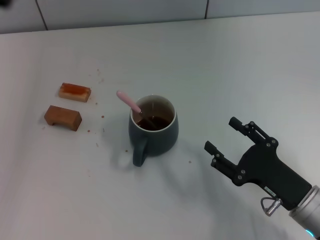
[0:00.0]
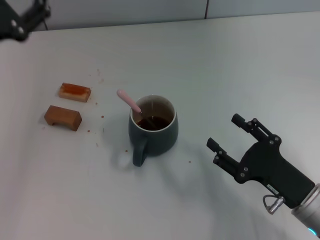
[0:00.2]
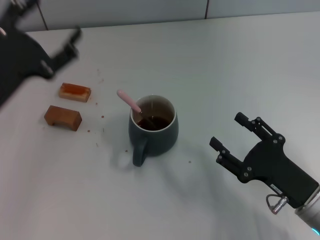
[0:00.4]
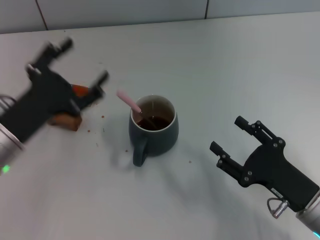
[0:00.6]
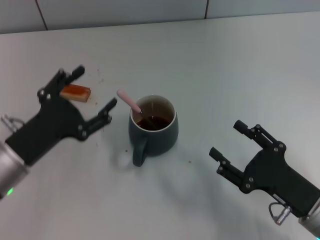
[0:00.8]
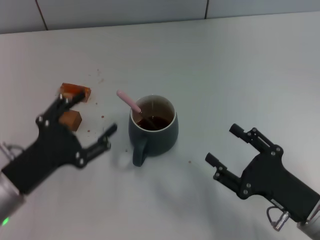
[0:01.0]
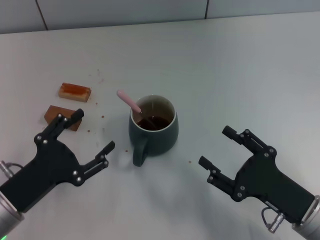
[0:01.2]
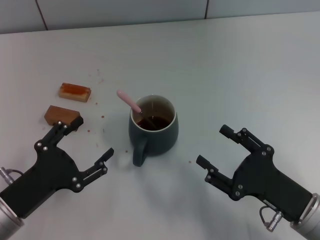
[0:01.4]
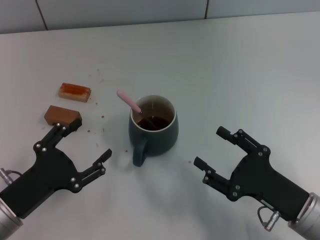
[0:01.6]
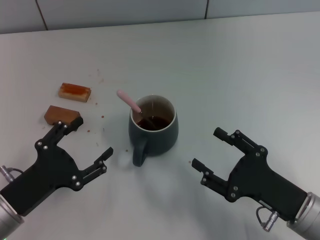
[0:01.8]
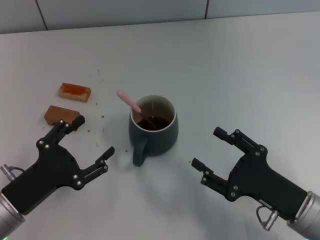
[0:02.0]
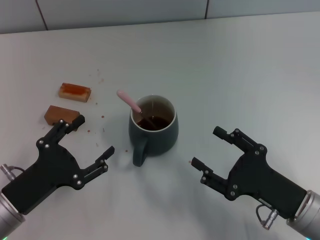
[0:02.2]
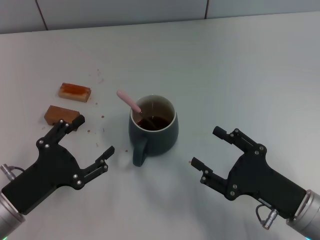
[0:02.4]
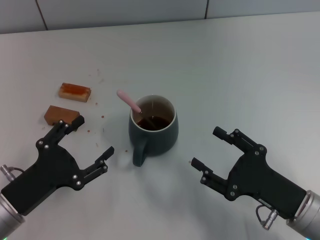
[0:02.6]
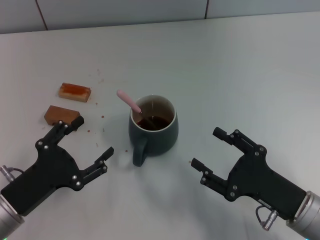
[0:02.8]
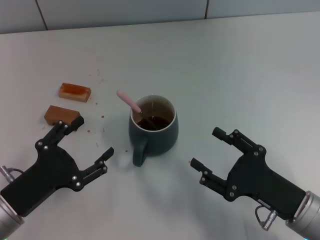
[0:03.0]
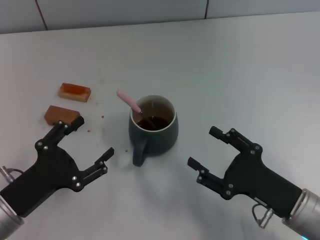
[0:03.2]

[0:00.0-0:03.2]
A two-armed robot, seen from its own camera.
Task of the whole recording: Move the grey cup to the center, lift the pink spoon, stir it three times in the cup, and put the spoon into the cup.
0:00.0 to 0:01.6: The left gripper is displaced downward and backward by approximately 20 cm.
0:01.6 to 0:03.2: The two grippers keep their place.

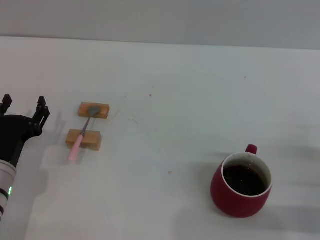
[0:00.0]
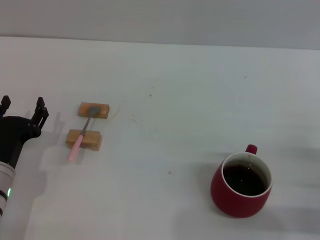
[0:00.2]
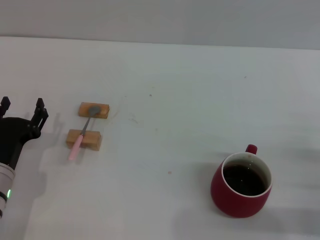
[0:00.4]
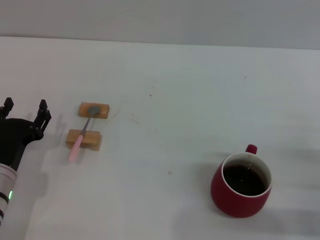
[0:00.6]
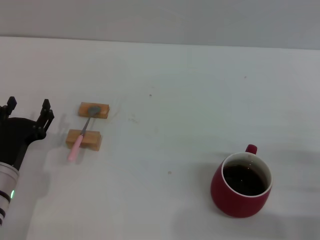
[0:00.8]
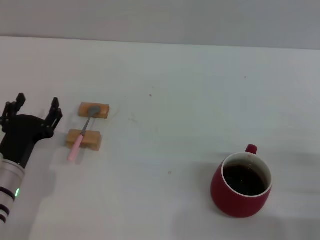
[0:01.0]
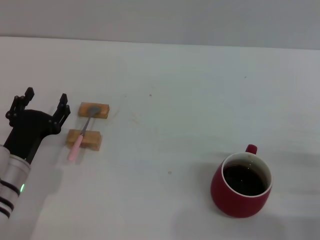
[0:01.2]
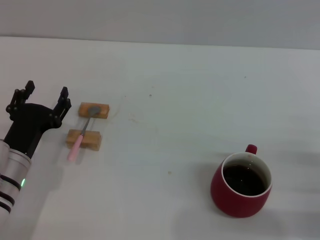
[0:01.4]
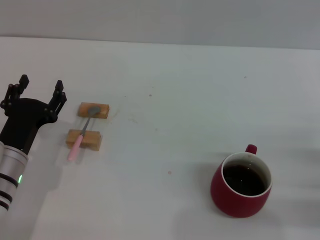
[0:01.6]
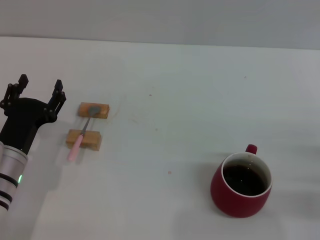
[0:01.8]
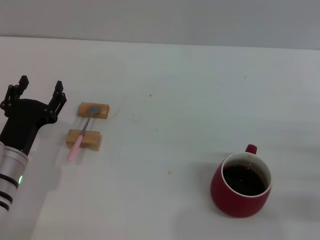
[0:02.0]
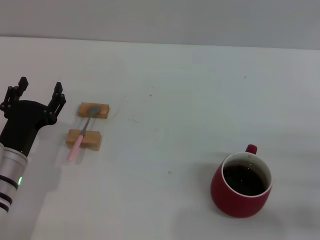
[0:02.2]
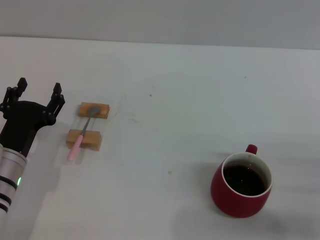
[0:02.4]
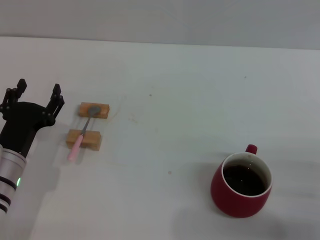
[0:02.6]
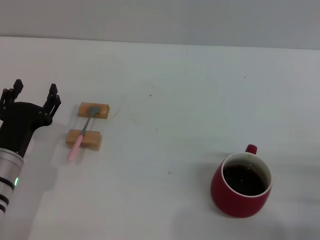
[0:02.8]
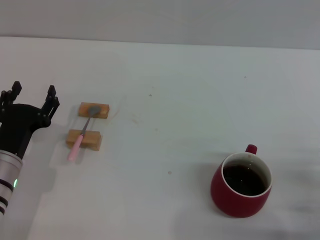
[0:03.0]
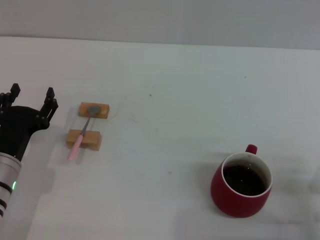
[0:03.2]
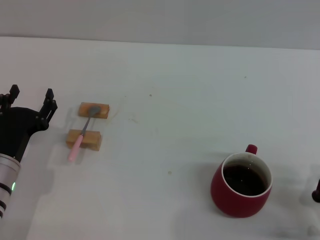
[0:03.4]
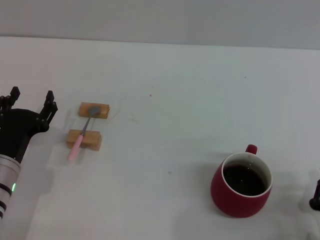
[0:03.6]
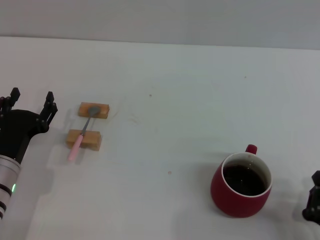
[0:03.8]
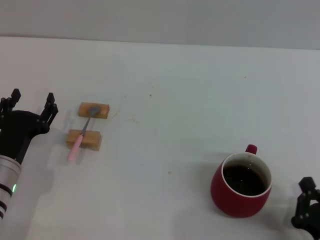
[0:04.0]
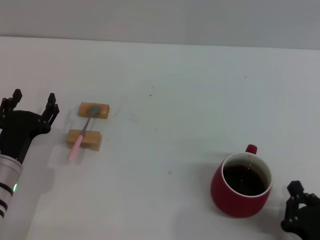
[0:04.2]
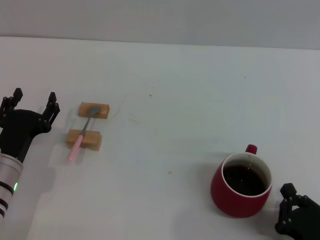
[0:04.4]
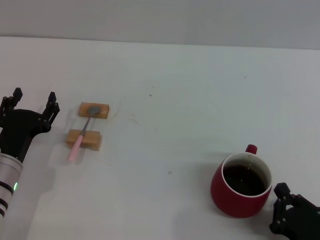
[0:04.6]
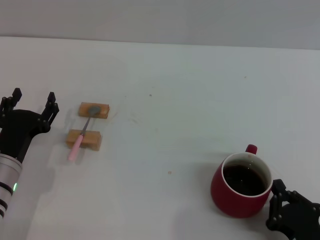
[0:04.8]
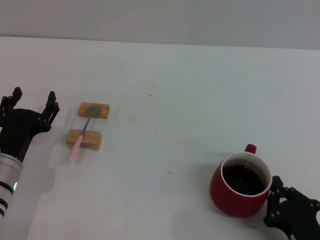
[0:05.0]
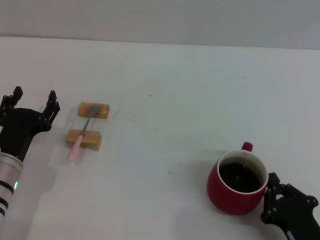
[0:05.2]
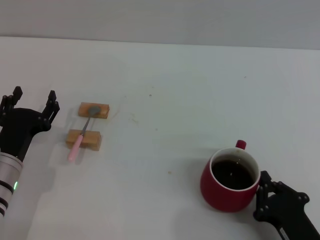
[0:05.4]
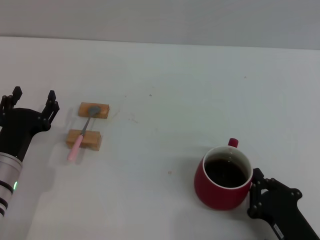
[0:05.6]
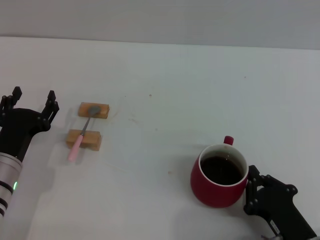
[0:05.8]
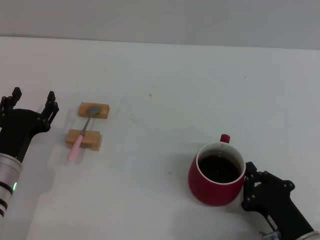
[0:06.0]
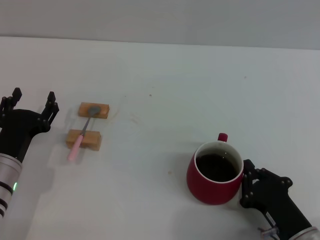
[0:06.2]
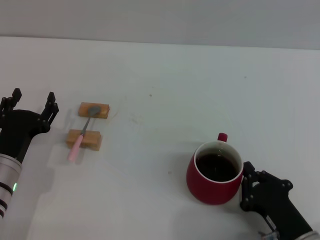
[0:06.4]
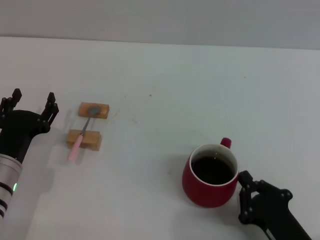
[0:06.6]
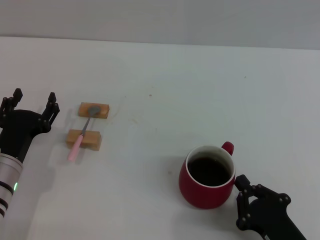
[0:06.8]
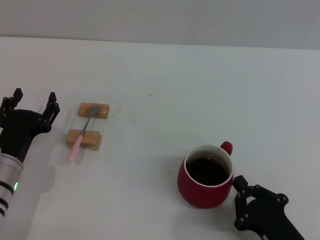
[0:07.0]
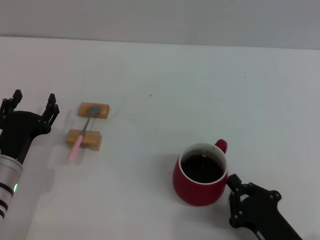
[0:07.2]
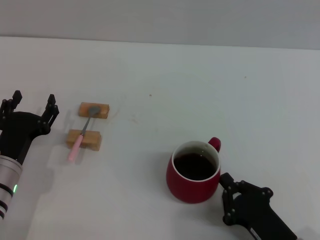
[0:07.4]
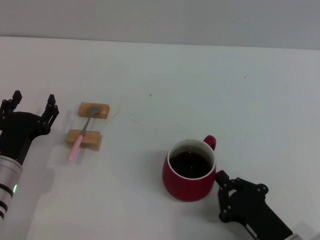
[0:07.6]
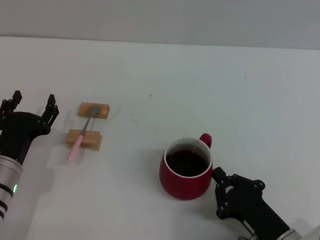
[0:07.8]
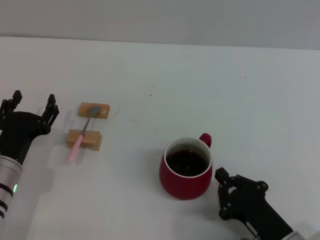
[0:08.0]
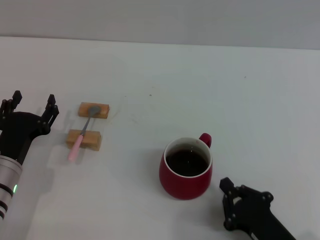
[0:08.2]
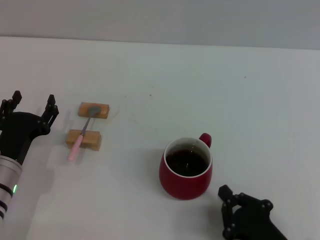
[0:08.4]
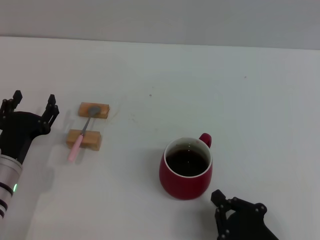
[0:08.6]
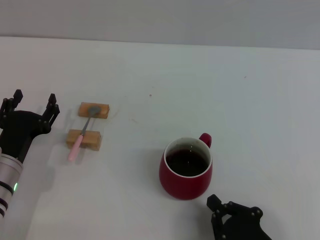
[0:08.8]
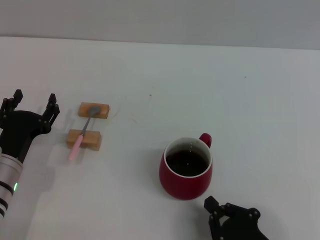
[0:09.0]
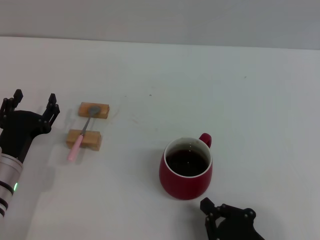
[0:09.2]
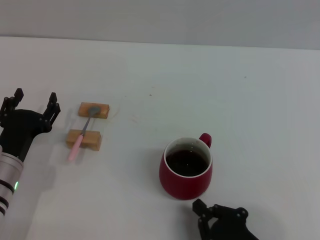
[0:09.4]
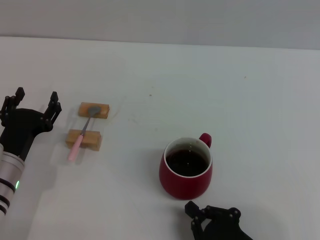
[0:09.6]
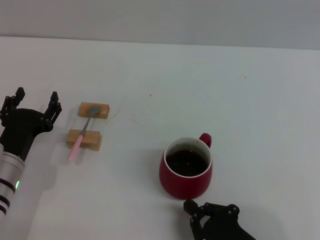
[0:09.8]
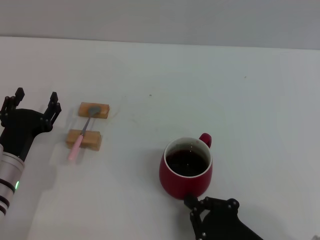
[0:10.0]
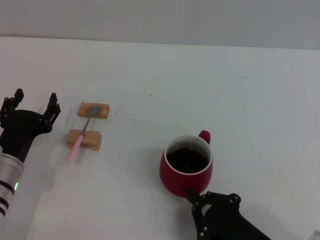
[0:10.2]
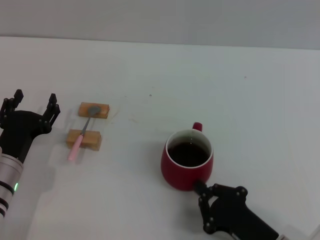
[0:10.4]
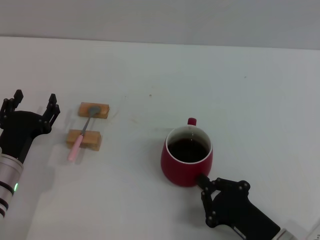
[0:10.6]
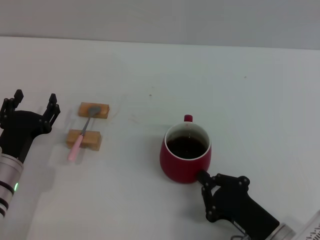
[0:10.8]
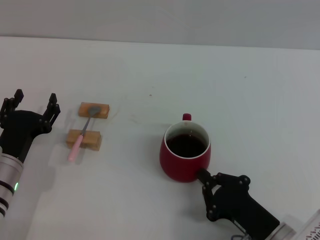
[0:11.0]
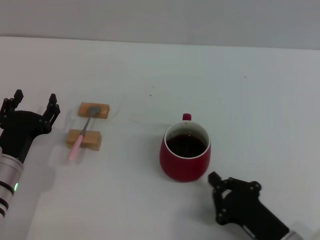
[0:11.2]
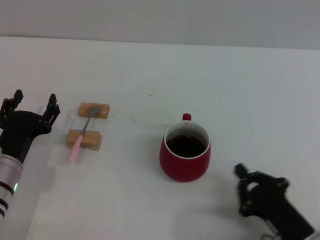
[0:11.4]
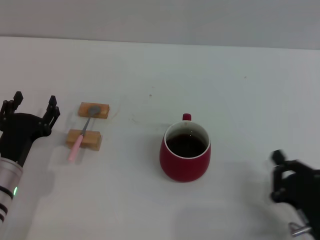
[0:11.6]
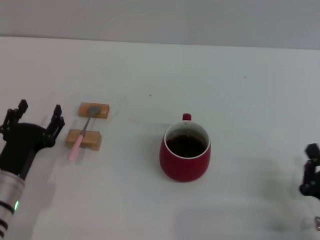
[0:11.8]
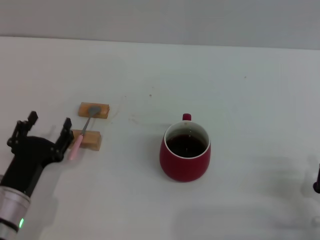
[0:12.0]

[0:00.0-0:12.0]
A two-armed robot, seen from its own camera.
Task of the whole recording: Move the red cup to the center, lift the pink spoon, stir it three times in the cup, and put the spoon into the cup.
Step, 0:00.0 to 0:11.2: Move the cup with coffee to the center of view with the right gripper.
0:00.0 to 0:01.6: There are only small adjustments of the grippers.
0:01.6 to 0:03.0: The right gripper goes approximately 5 cm to the left, and closes.
0:03.0 to 0:04.4: The right gripper moves to the left and backward, some 10 cm.
0:04.4 to 0:06.0: The right gripper shifts by about 5 cm.
0:06.0 to 0:09.0: The grippers stay close to where they were, moving slightly.
0:09.0 to 0:10.4: There are only small adjustments of the grippers.
0:10.4 to 0:12.0: The left gripper shifts by approximately 5 cm. The right gripper heads to the right, covering some 10 cm.

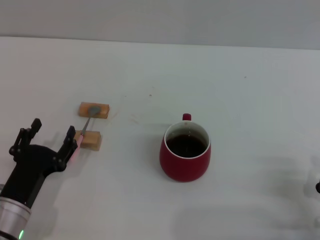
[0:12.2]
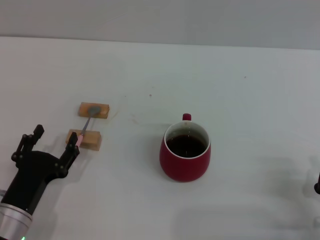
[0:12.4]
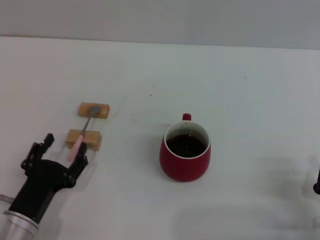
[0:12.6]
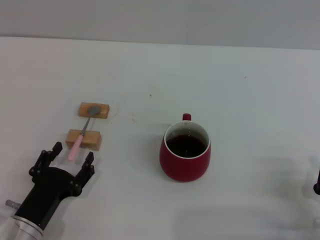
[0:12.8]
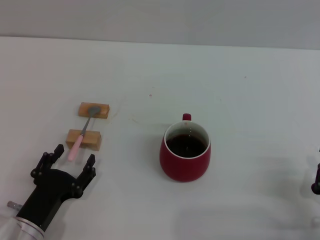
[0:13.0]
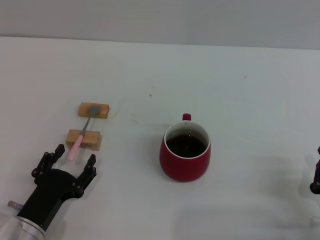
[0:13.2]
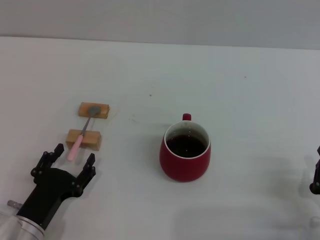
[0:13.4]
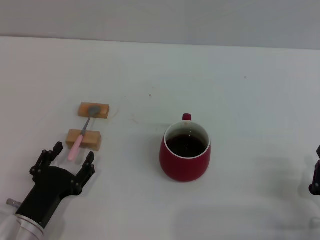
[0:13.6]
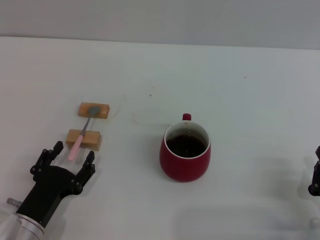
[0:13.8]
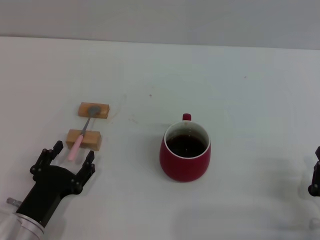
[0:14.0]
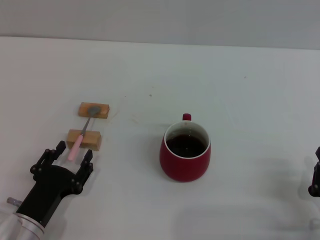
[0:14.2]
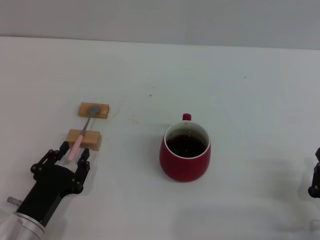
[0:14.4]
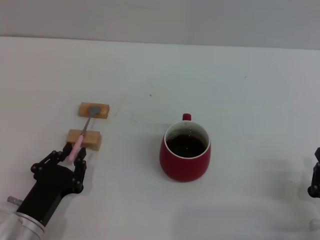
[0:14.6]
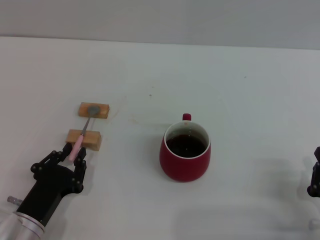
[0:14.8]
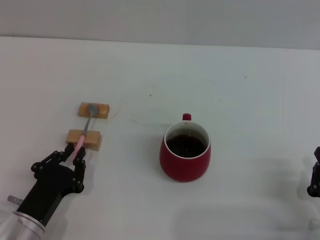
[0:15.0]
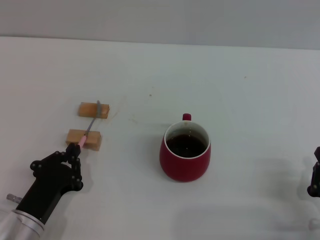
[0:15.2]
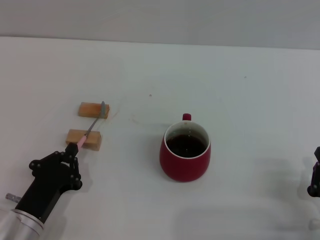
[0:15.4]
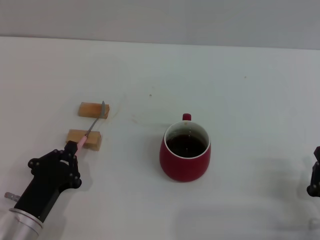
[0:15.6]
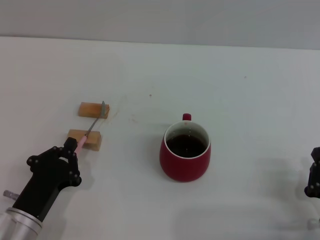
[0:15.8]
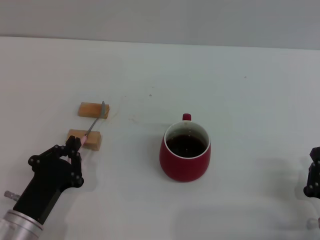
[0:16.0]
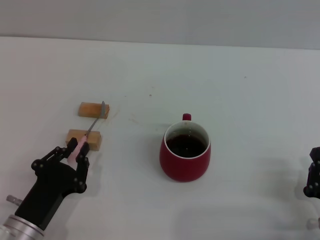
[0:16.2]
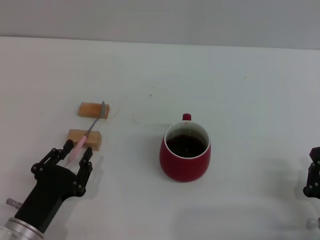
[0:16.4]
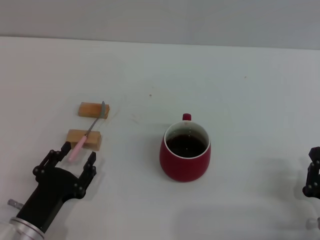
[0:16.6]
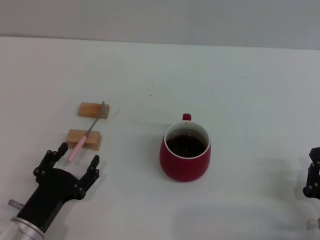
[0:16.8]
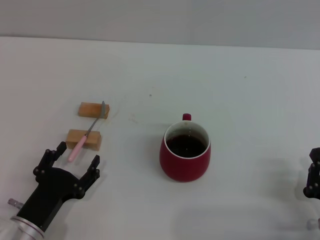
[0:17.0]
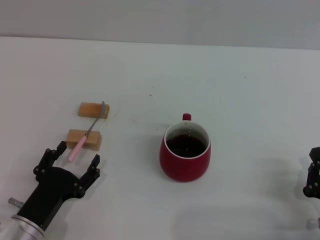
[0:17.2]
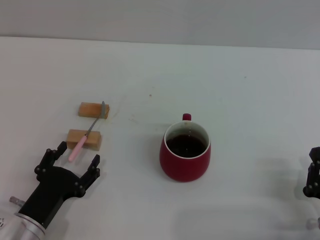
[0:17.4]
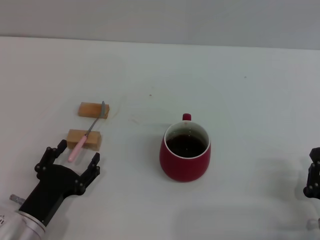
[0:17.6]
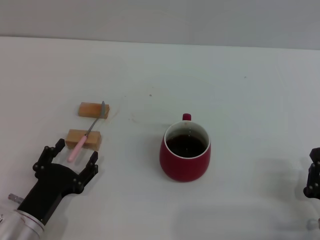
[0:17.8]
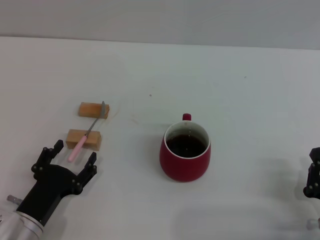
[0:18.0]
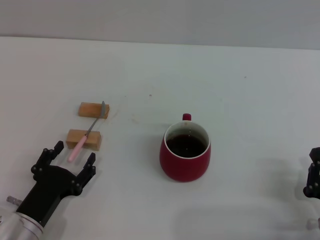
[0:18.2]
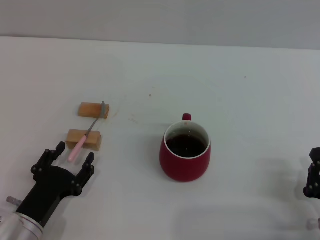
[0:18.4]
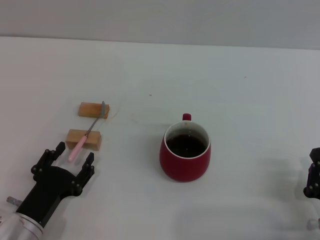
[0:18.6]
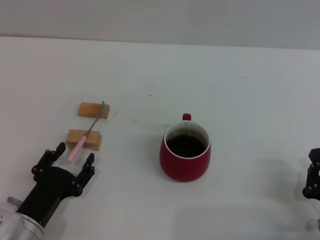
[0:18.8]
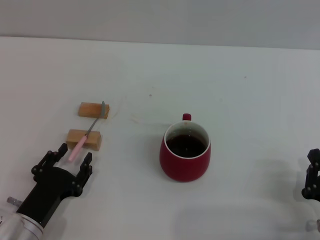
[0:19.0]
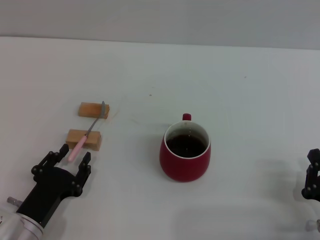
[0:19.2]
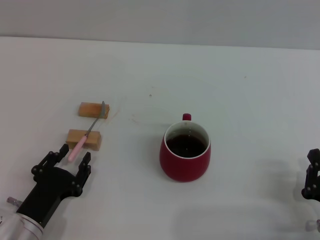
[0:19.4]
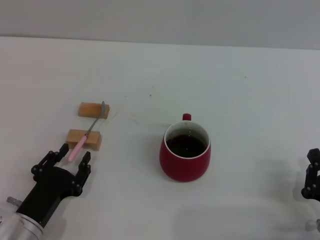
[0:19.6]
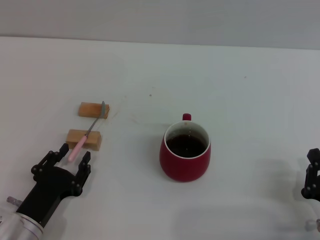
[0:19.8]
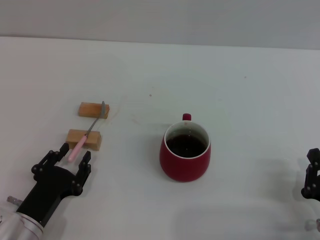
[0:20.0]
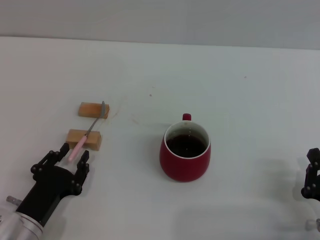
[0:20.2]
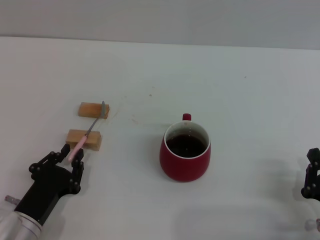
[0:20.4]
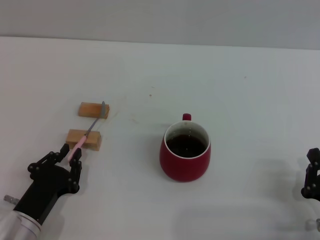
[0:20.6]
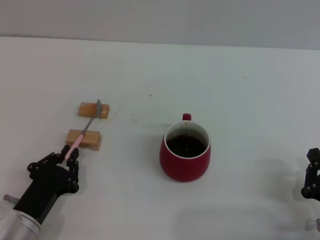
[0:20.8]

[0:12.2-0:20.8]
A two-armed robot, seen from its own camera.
Task of the whole recording: Move the red cup to the center, lift the pink spoon, stir it three times in the cup, and put the spoon into the cup.
0:12.2 to 0:13.6: There are only small adjustments of the grippers.
0:13.6 to 0:15.0: The left gripper closes up.
0:15.0 to 0:16.6: The grippers stay close to where they were, moving slightly.
0:16.6 to 0:18.0: The left gripper opens its fingers.
0:18.0 to 0:19.4: The left gripper closes up.
0:19.4 to 0:20.8: The left gripper closes up.
